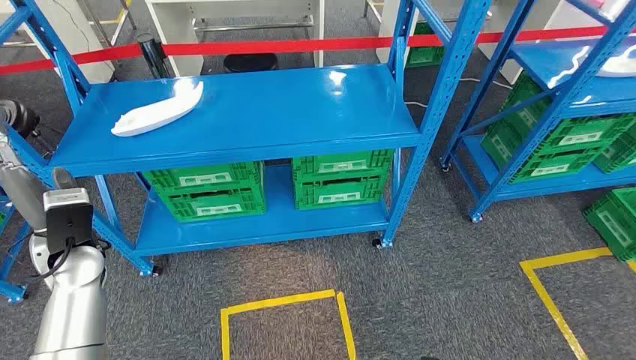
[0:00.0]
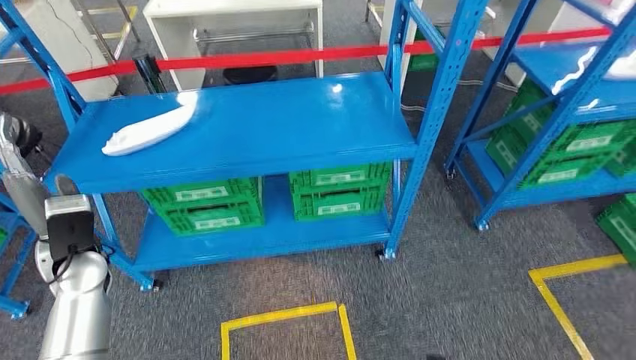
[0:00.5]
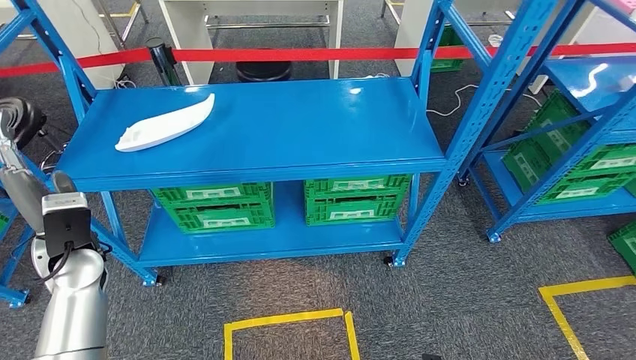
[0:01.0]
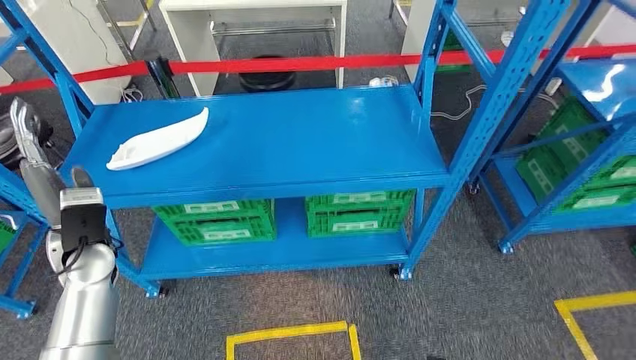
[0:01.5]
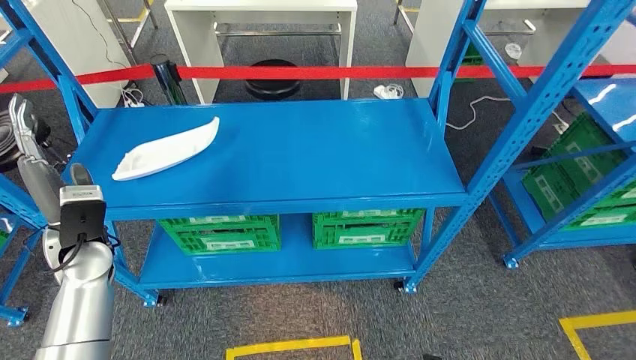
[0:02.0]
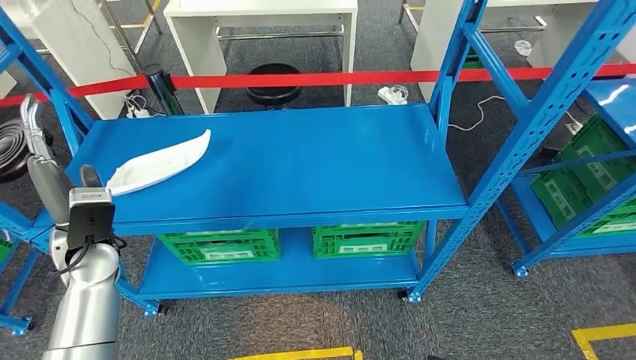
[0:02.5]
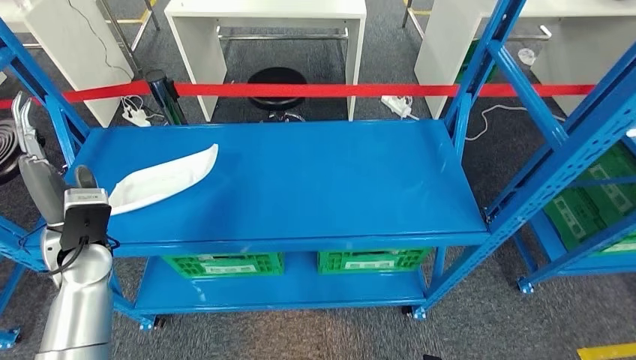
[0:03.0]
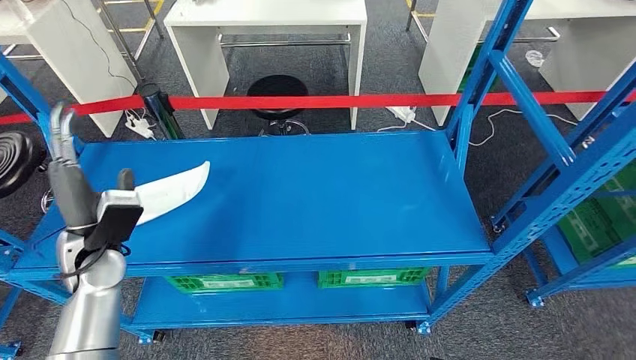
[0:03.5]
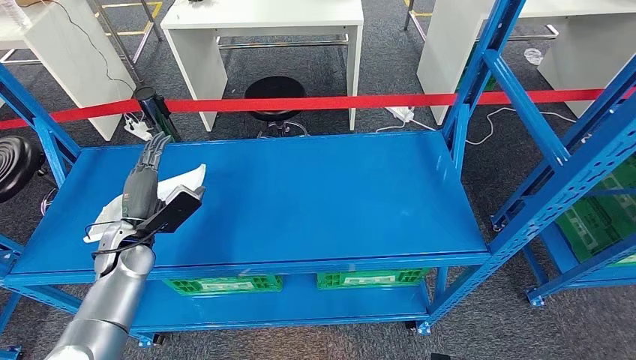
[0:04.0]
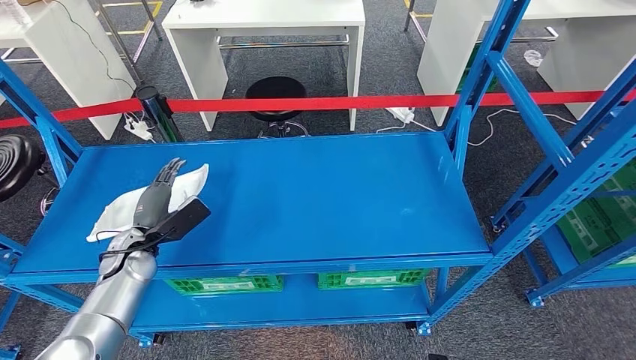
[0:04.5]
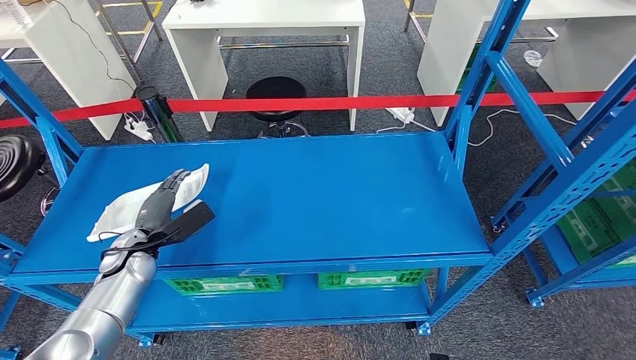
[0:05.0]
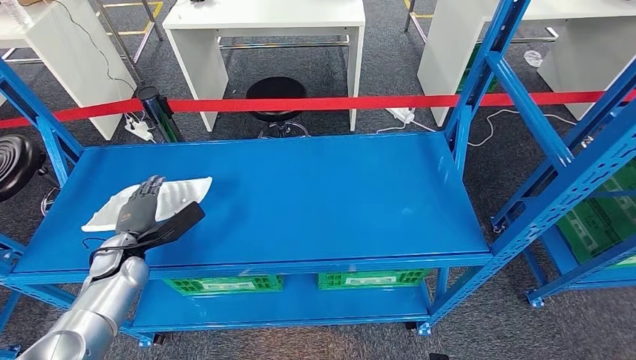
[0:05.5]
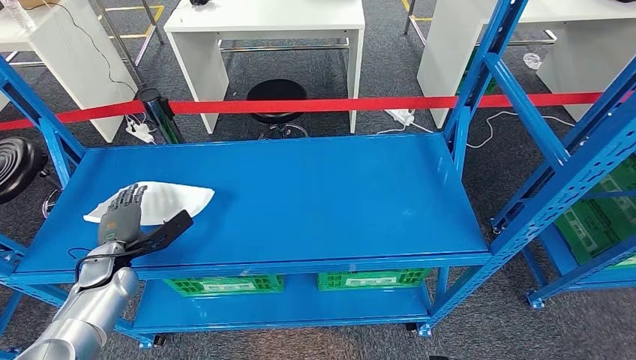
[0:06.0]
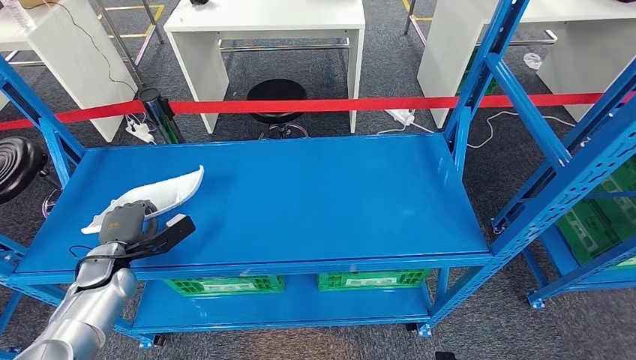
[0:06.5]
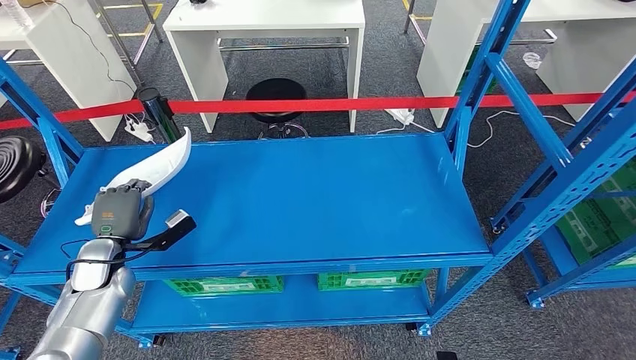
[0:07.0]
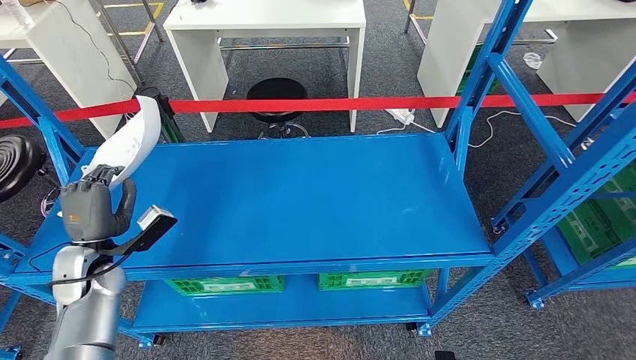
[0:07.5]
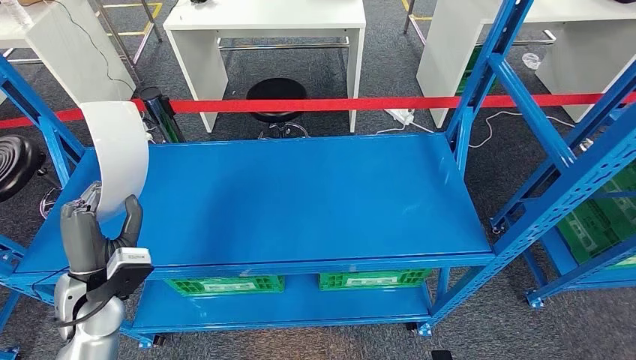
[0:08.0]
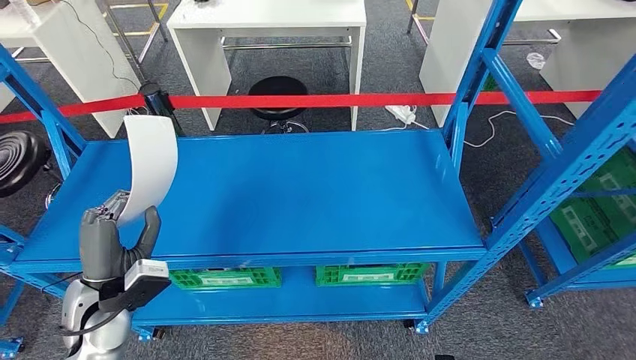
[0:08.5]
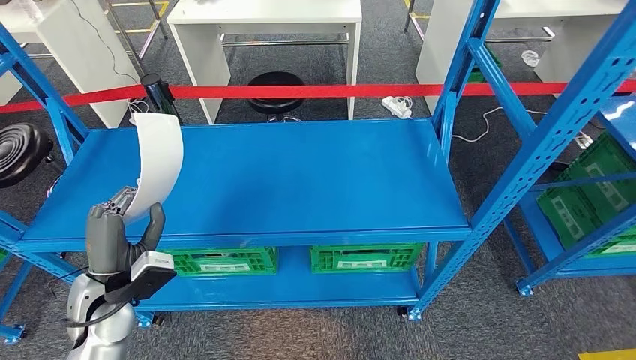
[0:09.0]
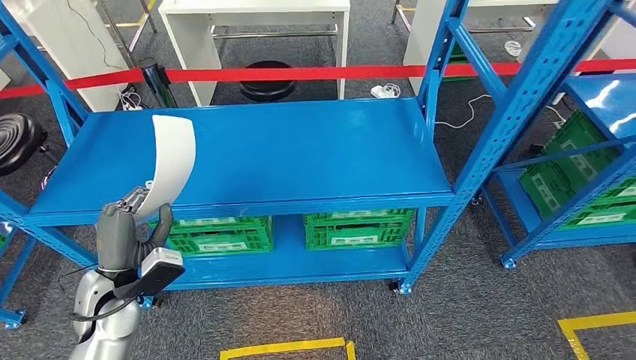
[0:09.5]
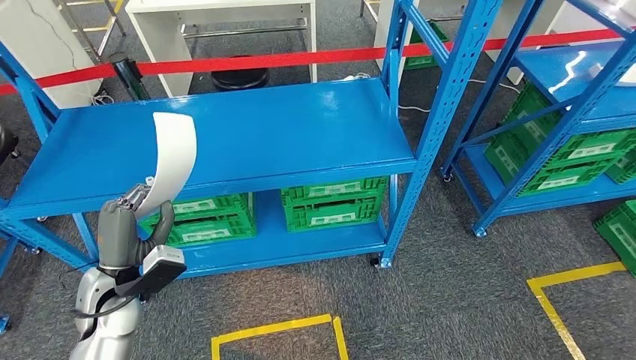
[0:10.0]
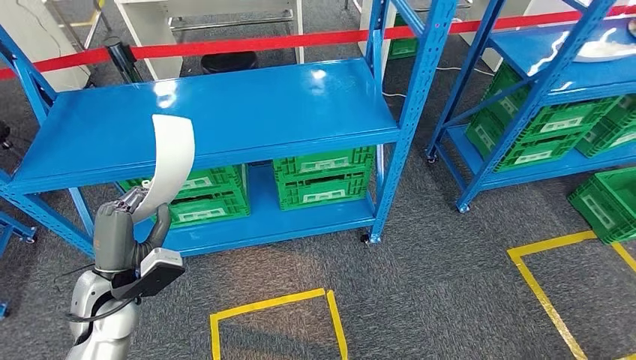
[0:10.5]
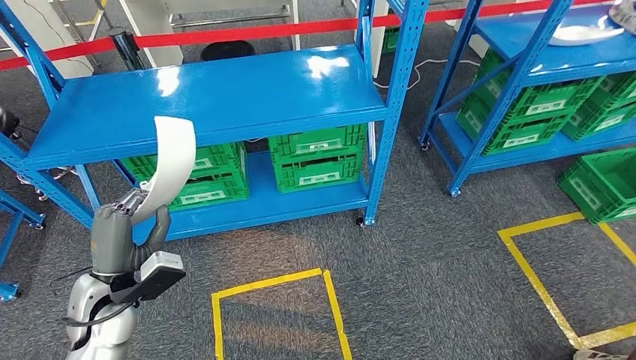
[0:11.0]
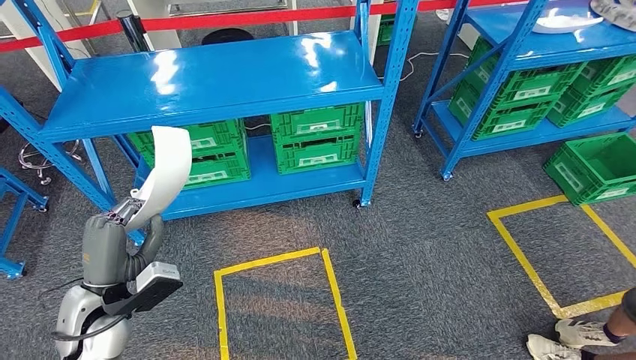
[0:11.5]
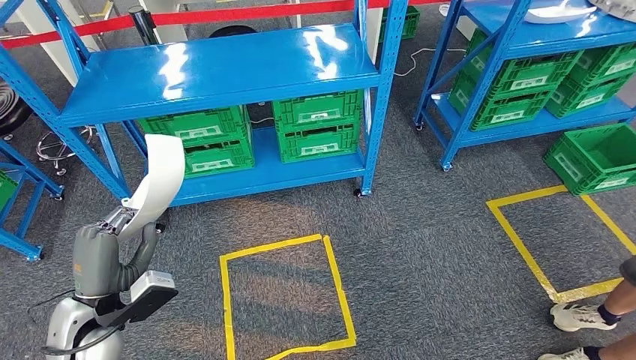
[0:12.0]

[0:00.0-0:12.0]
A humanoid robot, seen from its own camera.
Step, 0:00.0 to 0:08.5: Pick up the small parts from the shelf.
0:04.0 to 0:06.0: The left hand goes roughly 10 cm to the left and downward.
0:06.0 to 0:08.0: The left hand is displaced upward, to the right and backward by roughly 10 cm.

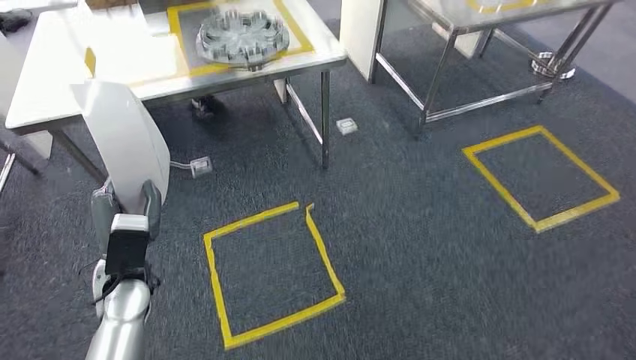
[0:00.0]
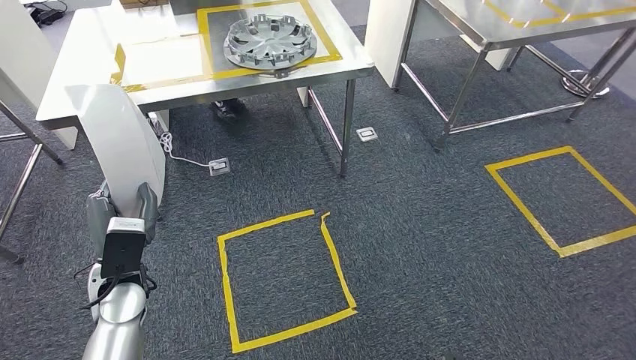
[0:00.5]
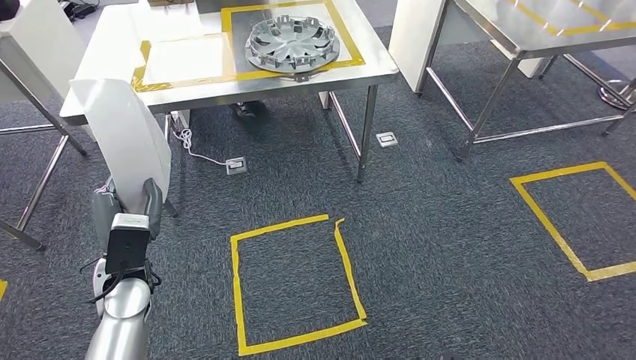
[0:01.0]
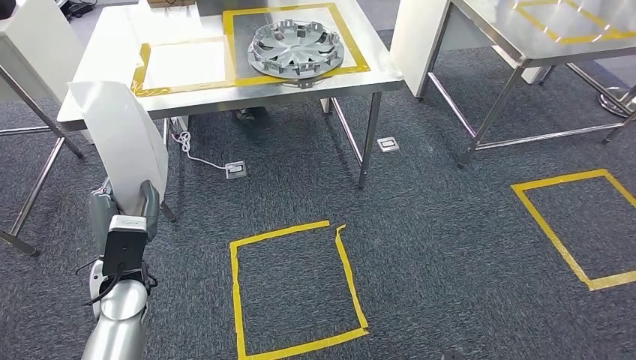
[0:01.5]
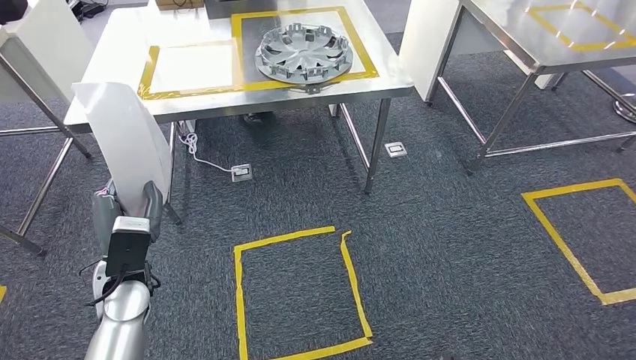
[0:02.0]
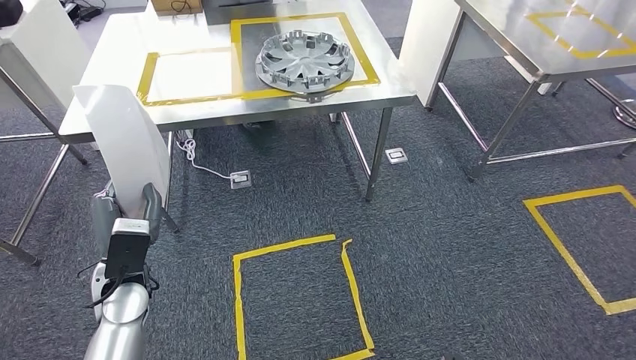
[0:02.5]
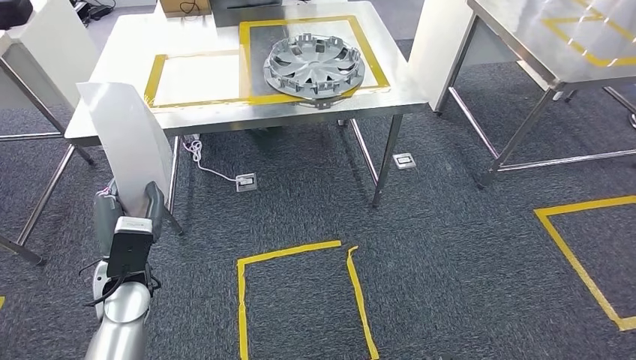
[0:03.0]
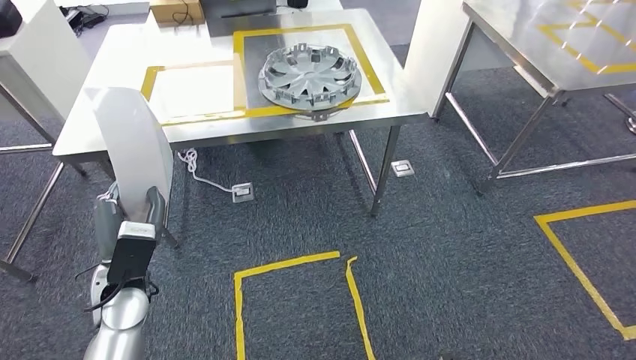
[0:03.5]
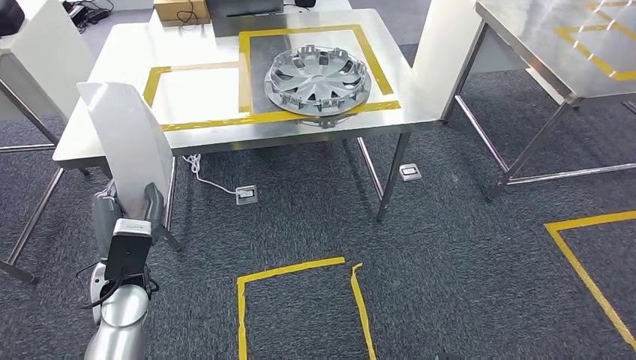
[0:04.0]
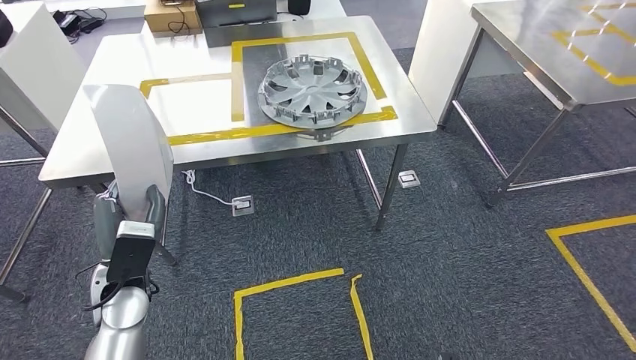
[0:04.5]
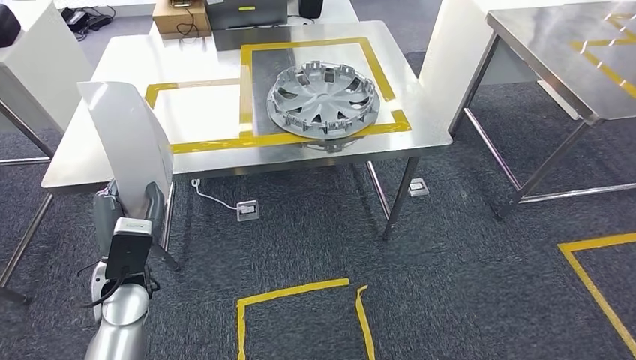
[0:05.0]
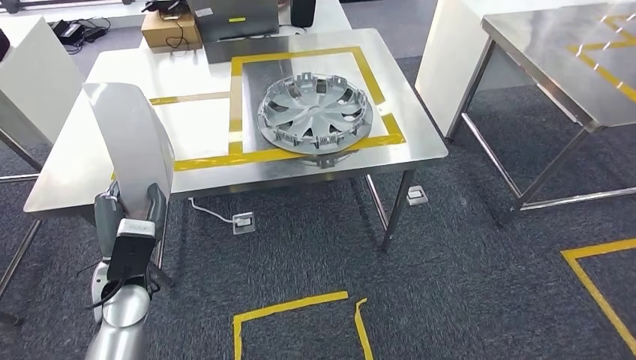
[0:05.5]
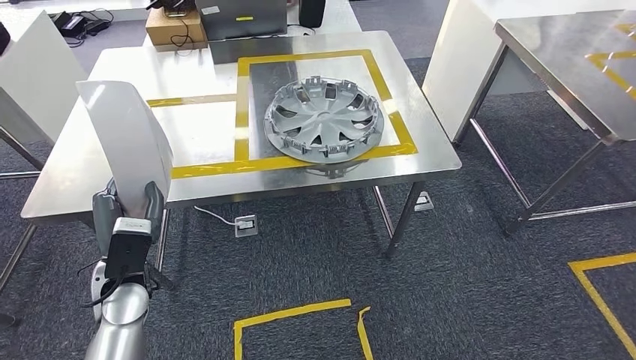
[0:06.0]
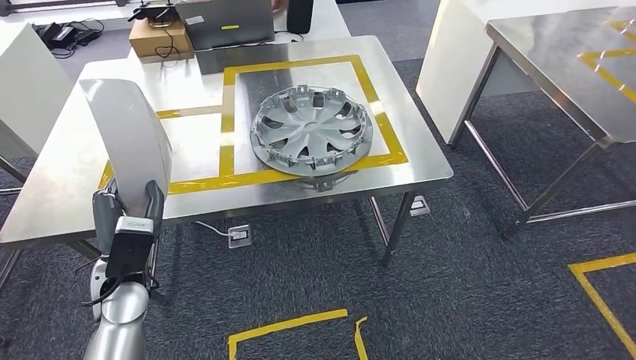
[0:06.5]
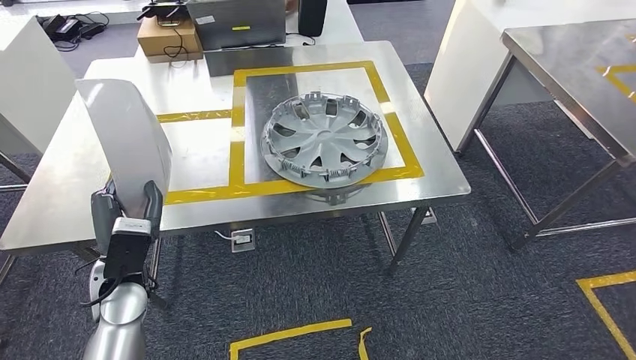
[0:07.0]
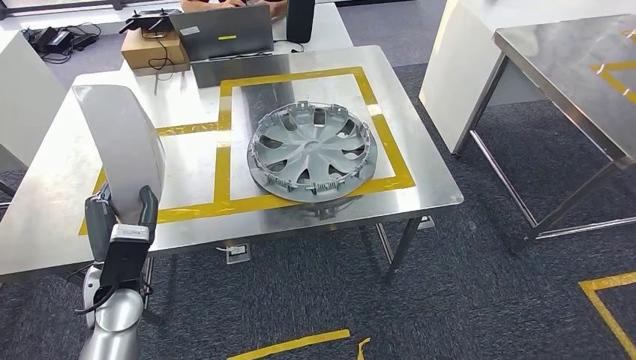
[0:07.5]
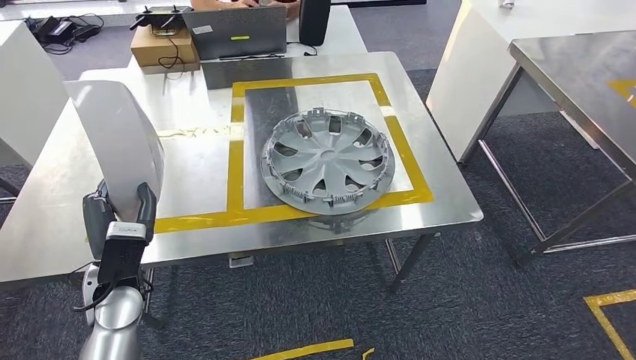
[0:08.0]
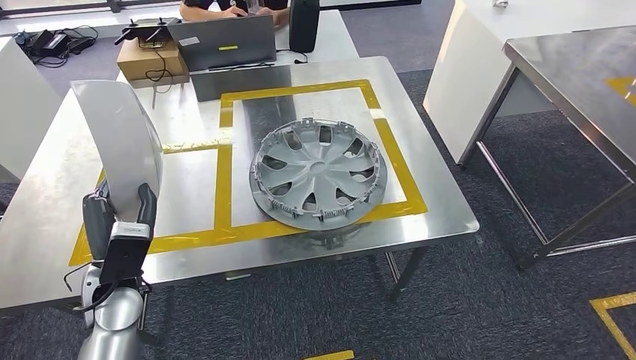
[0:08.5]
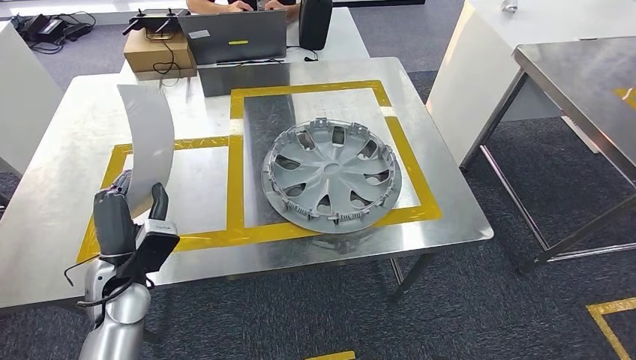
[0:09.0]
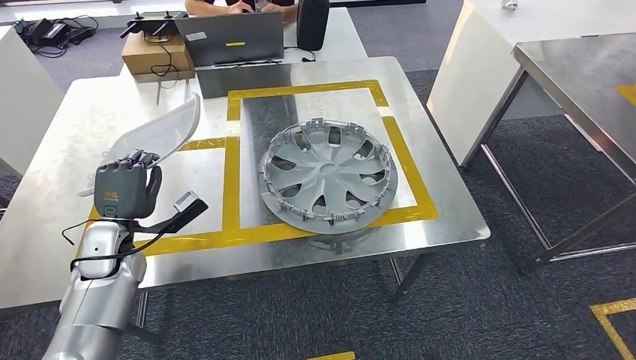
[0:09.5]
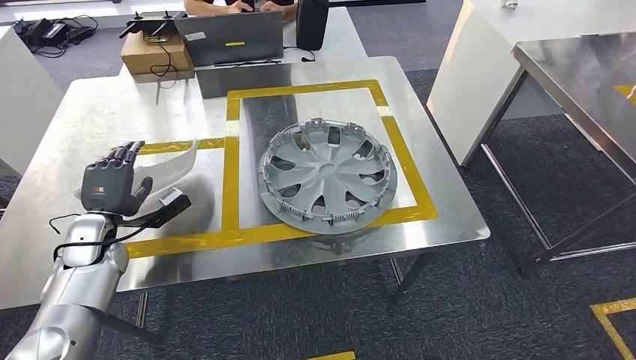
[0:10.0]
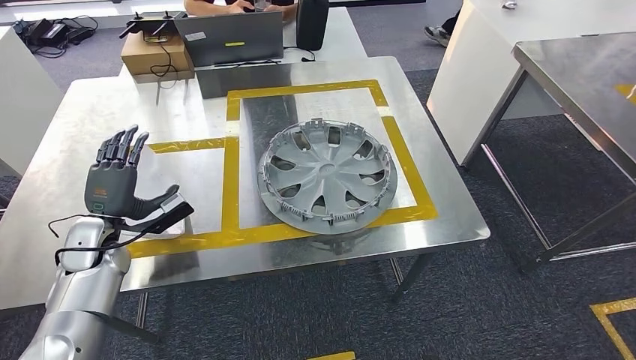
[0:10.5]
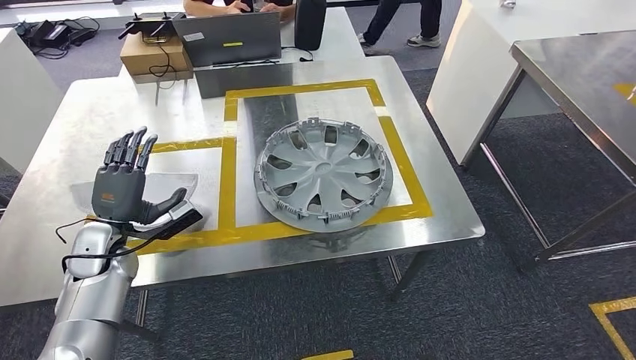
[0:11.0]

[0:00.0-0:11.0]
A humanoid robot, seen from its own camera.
Step, 0:00.0 to 0:04.5: Move the small parts to the workbench.
